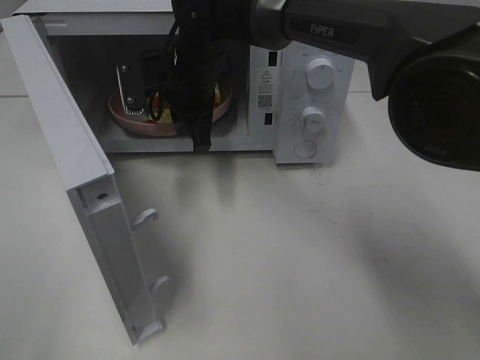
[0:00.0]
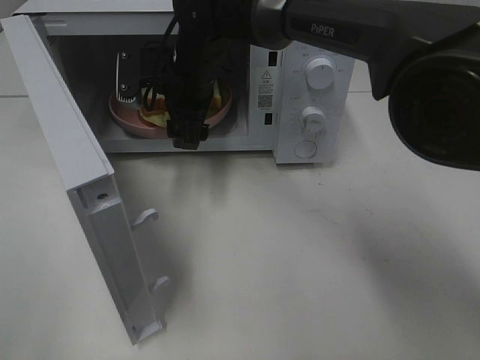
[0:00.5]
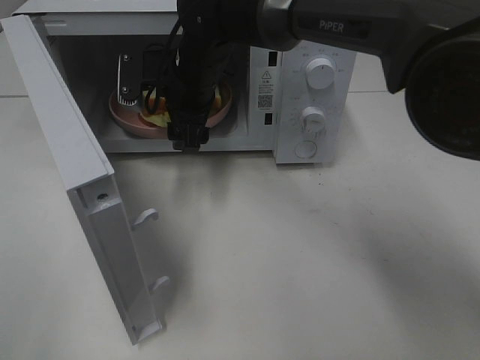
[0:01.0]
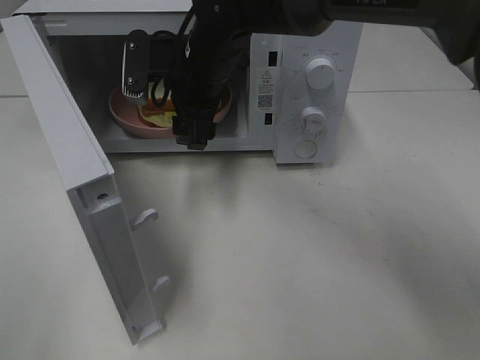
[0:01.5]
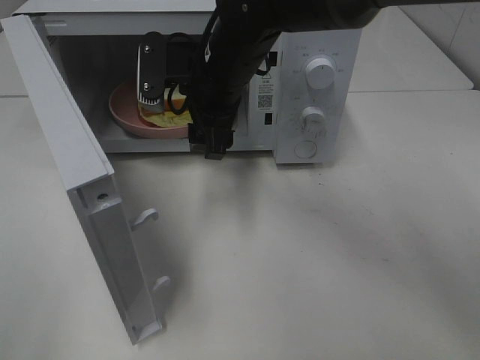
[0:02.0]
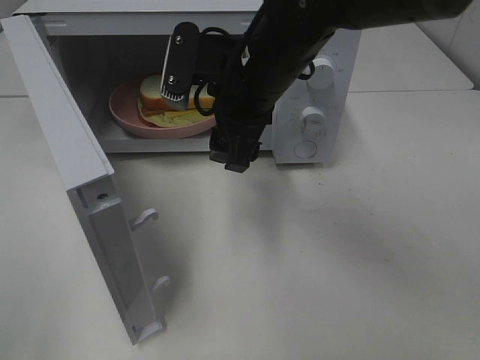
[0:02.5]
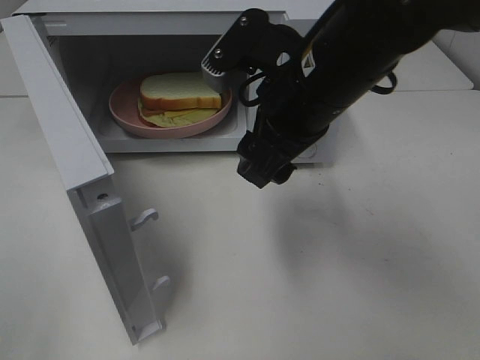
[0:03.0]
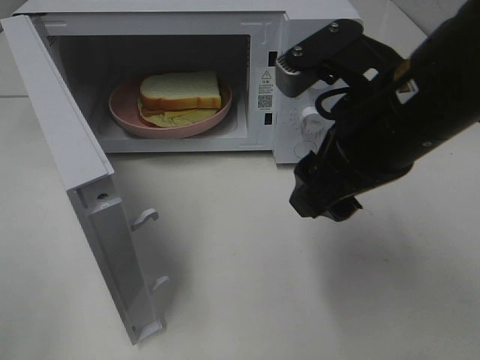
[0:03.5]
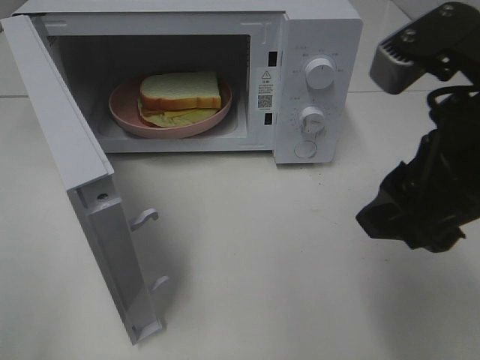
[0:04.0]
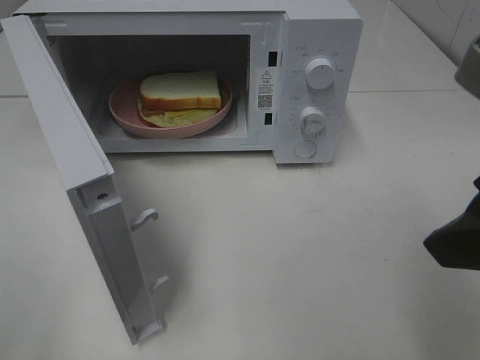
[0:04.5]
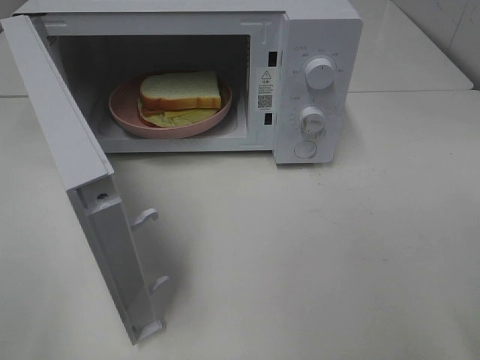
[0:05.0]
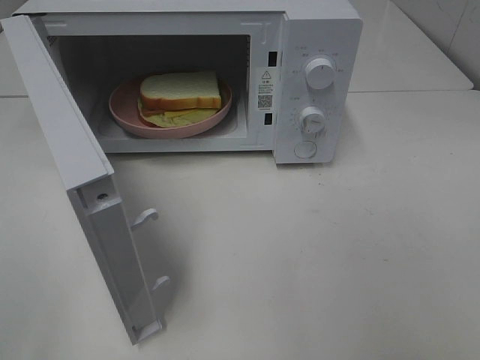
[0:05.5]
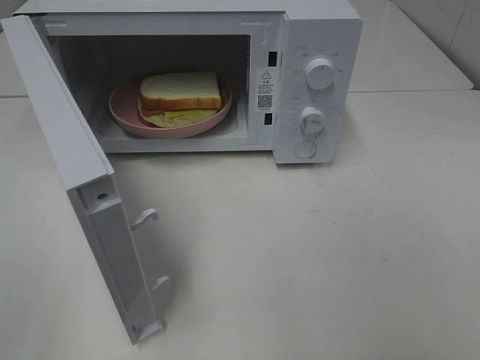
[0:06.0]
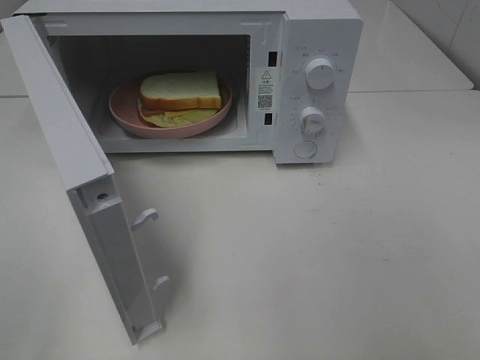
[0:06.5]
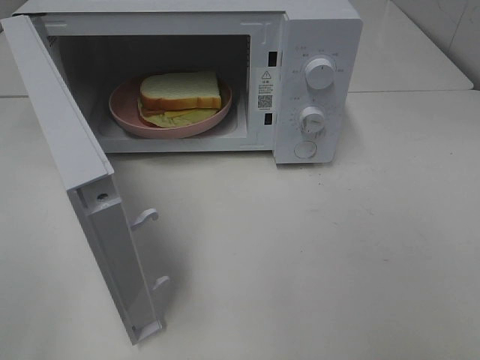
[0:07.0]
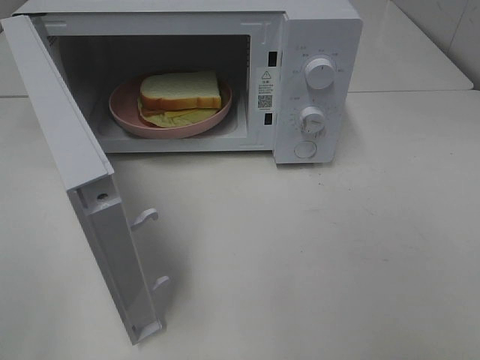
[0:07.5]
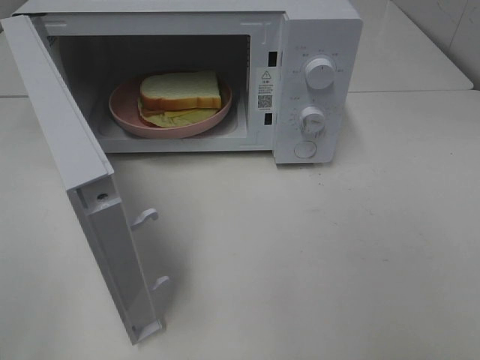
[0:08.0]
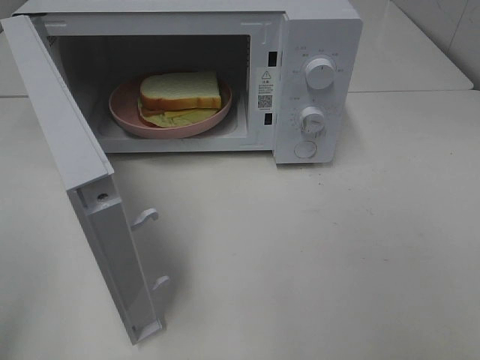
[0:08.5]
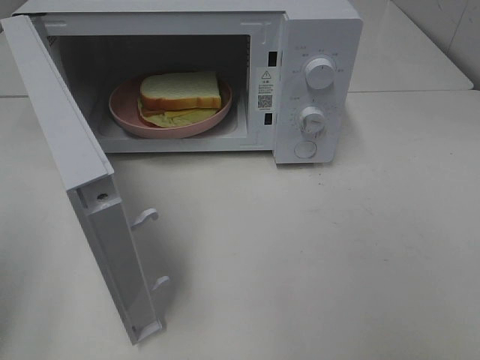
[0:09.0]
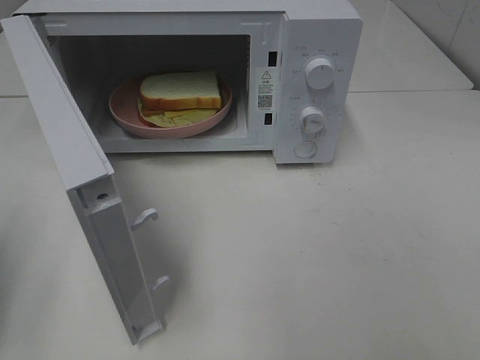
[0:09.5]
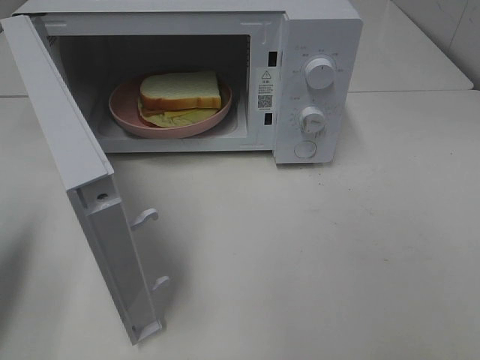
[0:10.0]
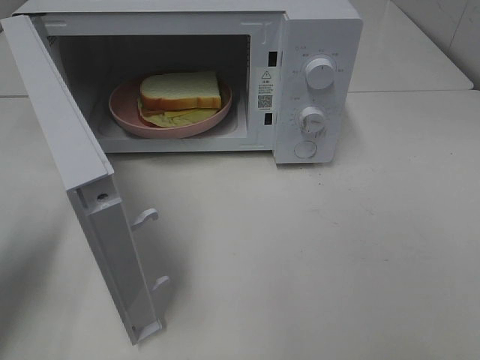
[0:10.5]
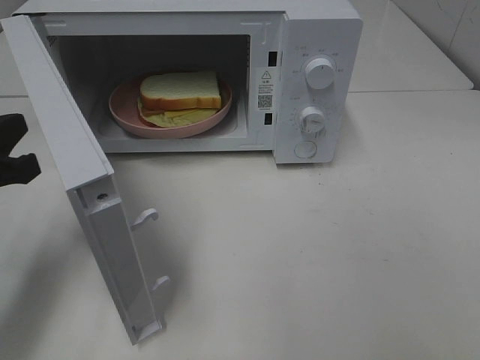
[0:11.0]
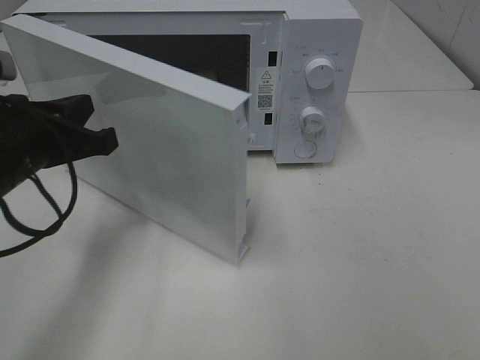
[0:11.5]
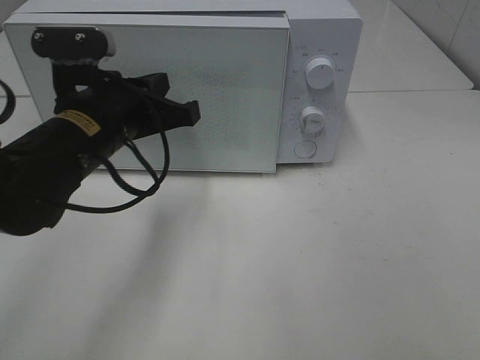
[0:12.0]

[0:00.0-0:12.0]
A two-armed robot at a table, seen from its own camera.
Task of the whole recording: Heat Sandwich.
0:00.0 to 0:02.0: The right gripper moves backward, about 5 cm, and opens up.
0:02.0 to 0:04.0: The right gripper shifts approximately 25 cm backward and to the right.
0:04.0 to 0:06.0: The right gripper travels backward and to the right by some 20 cm.
0:06.0 to 0:08.0: Both grippers stay about where they are.
0:08.0 to 0:10.0: The left gripper goes about 20 cm forward and downward, and closes up.
0:10.0 to 0:12.0: The left gripper moves to the right and forward, some 25 cm.

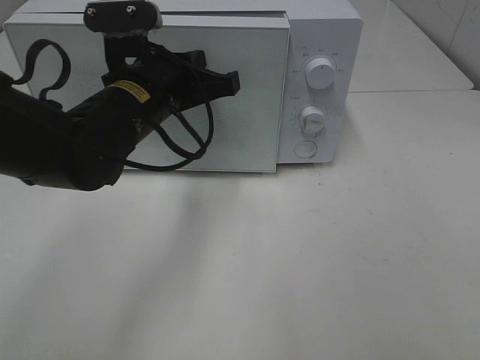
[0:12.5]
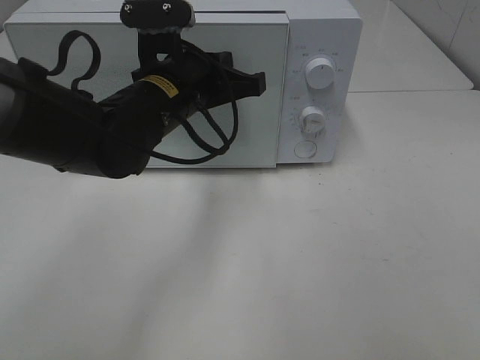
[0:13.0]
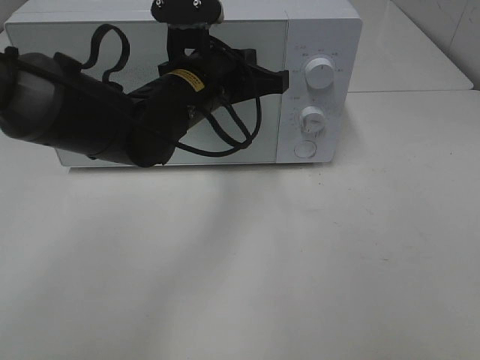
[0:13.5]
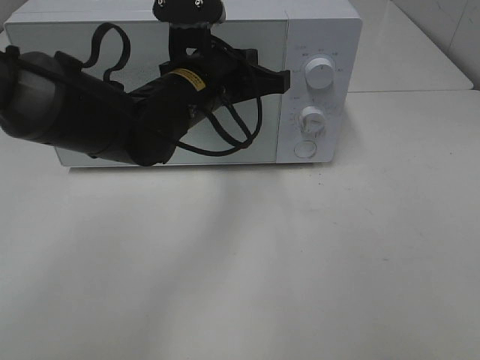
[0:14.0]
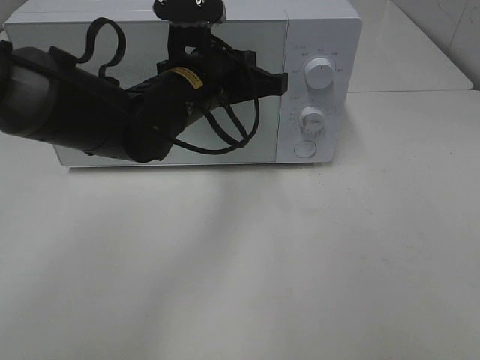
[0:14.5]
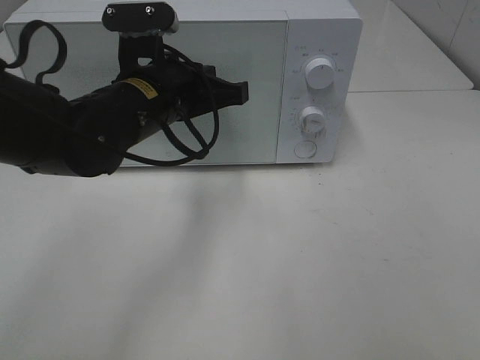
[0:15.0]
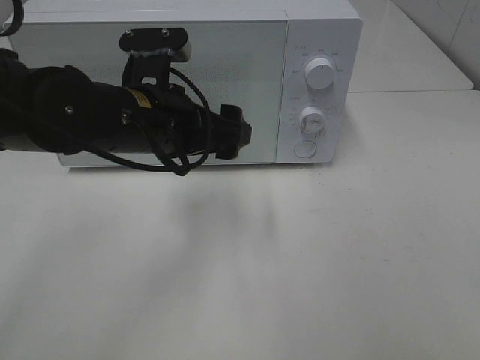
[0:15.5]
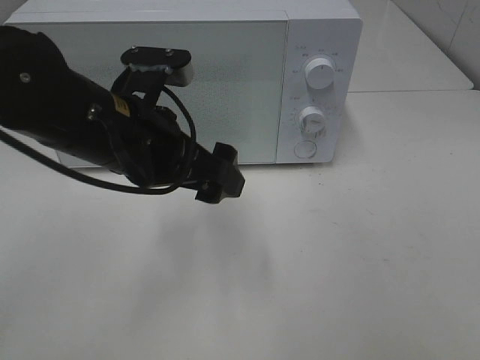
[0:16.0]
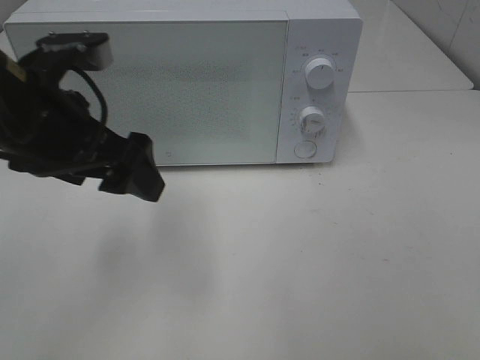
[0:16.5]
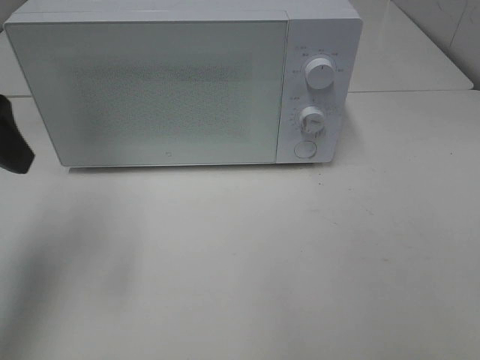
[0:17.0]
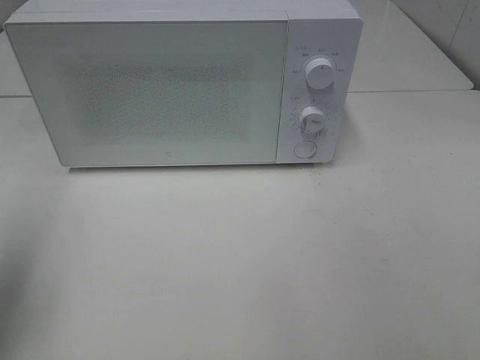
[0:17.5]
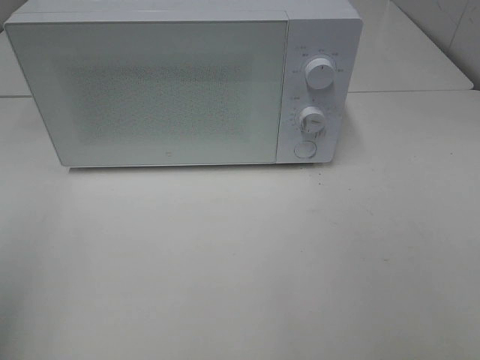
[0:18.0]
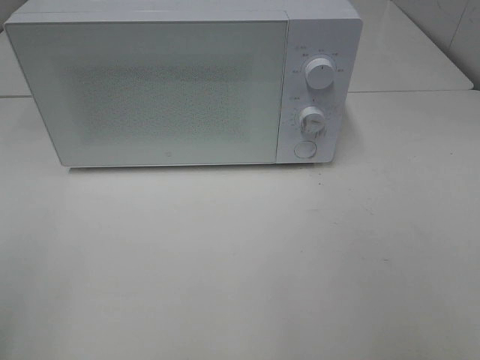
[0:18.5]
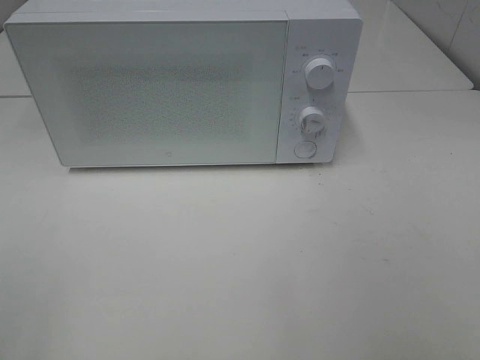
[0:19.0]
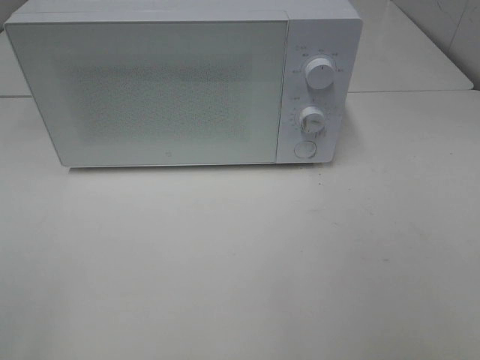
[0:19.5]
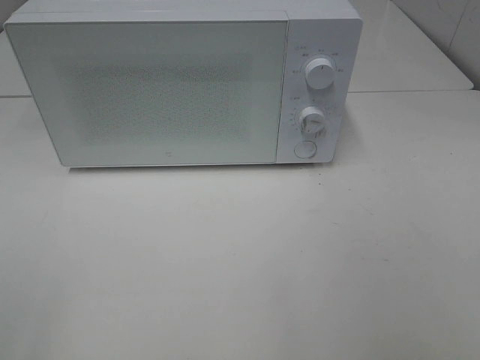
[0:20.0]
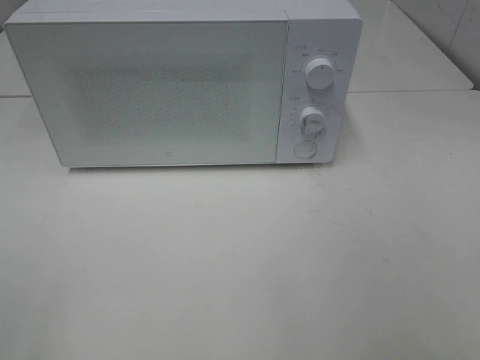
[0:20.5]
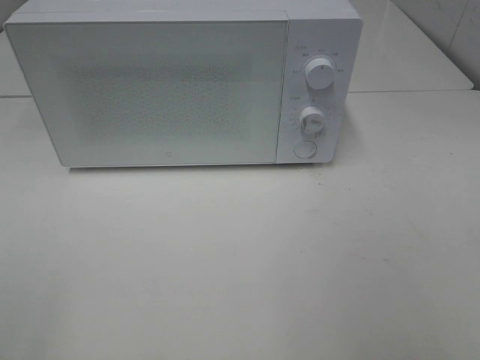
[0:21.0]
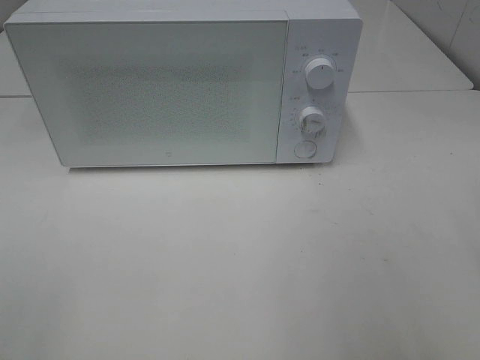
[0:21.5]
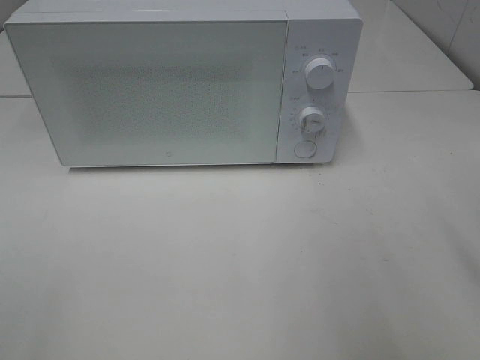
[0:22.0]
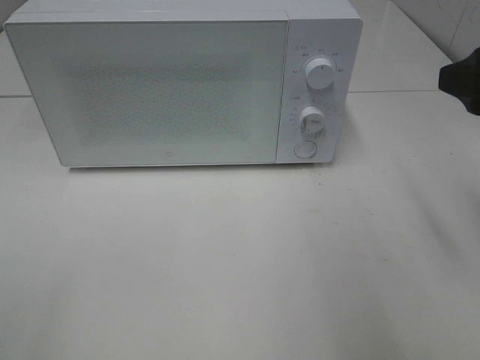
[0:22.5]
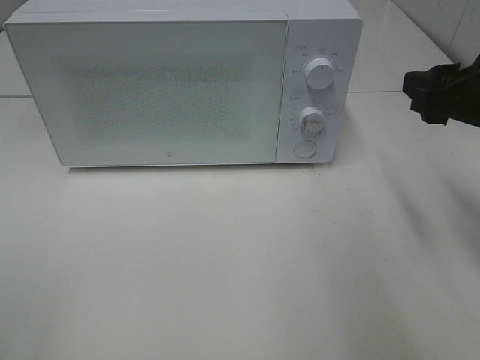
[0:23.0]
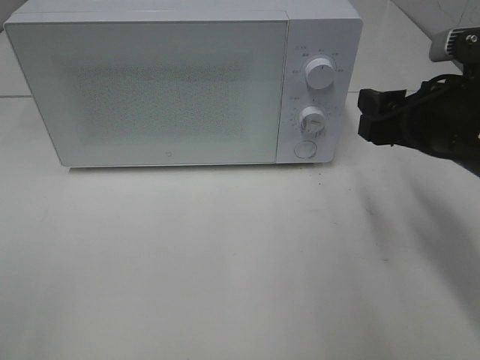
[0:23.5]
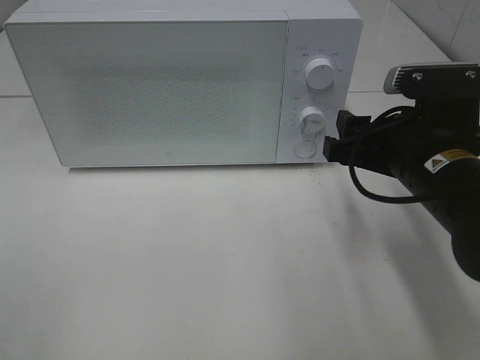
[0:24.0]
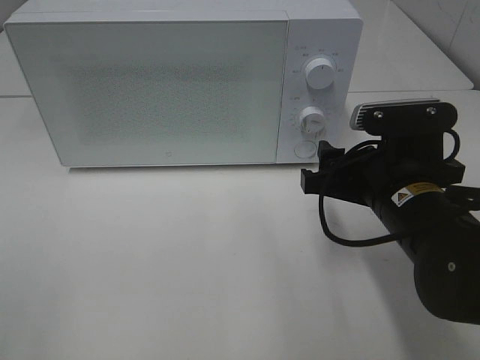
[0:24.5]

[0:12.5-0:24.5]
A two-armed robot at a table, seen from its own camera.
Task of the whole recording: Heat Sandwich.
Step, 0:12.5 to 0:14.5: Left hand: close the microwave door.
0:12.5 to 0:14.5: The left gripper moves approximately 5 cm.
0:14.5 to 0:16.5: The left gripper shifts approximately 15 cm to the left, backward and upward, and opens its fingers.
0:16.5 to 0:18.5: The left gripper shifts about 25 cm backward and to the left.
0:20.5 to 0:22.5: The right gripper travels forward by approximately 20 cm.
0:22.5 to 0:24.5: The right gripper travels downward and to the left by about 15 cm.

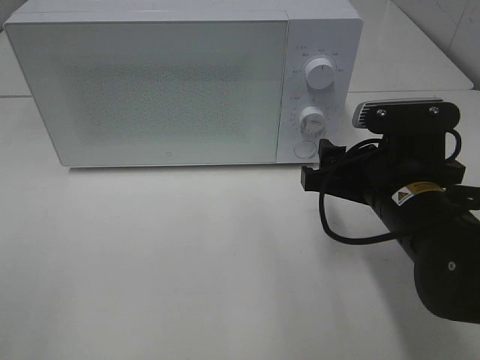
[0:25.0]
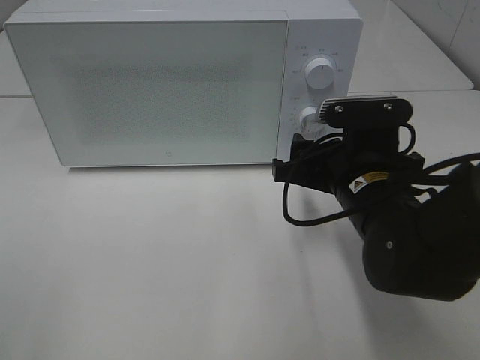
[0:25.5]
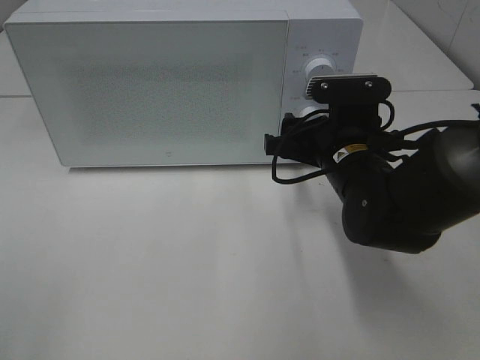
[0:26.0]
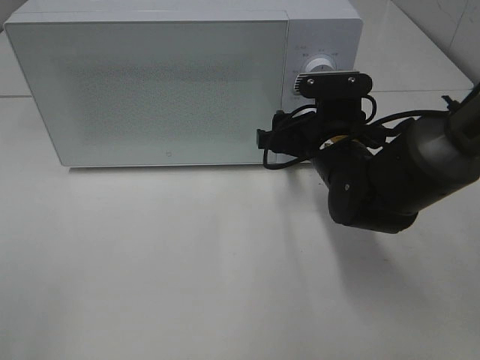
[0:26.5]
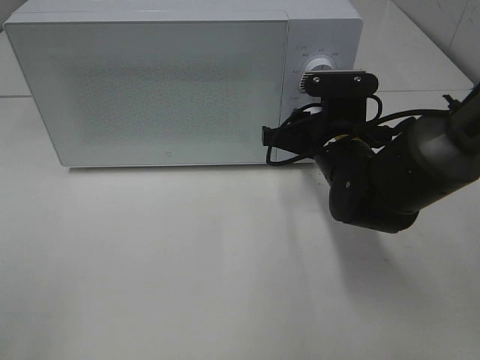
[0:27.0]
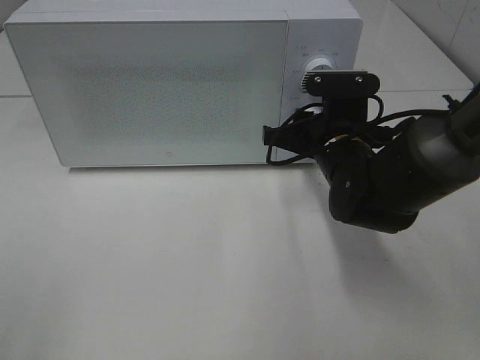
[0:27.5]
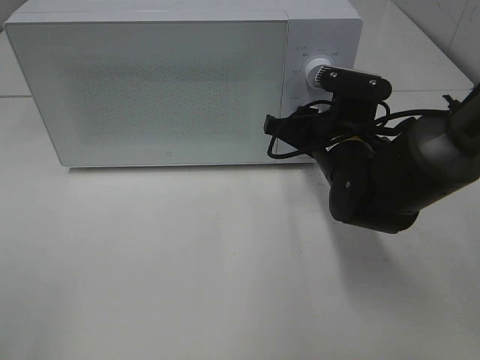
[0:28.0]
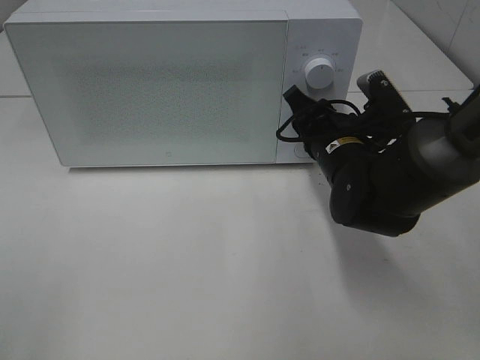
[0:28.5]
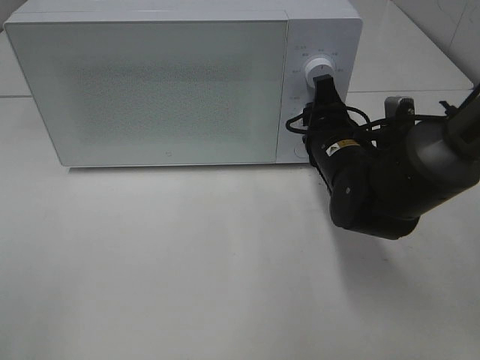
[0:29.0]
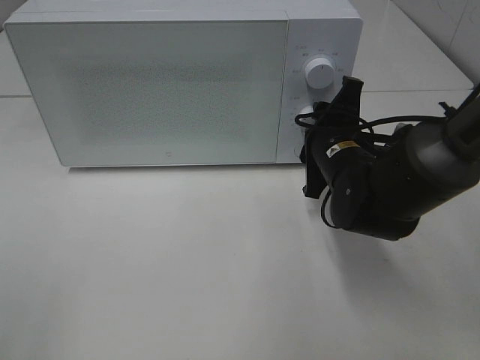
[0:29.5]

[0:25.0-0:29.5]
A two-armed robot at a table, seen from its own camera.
Task of the whole recording: Heat Sandwich.
0:25.0 to 0:27.0: The right gripper shifts roughly 10 cm forward.
